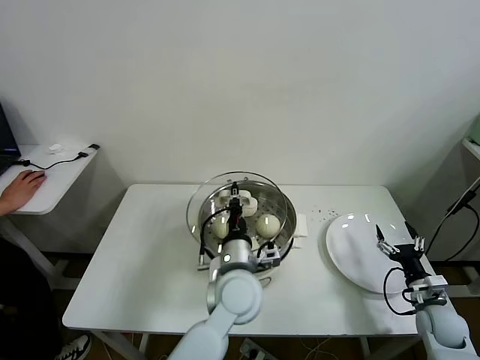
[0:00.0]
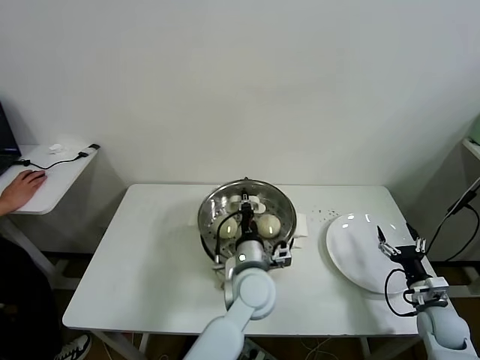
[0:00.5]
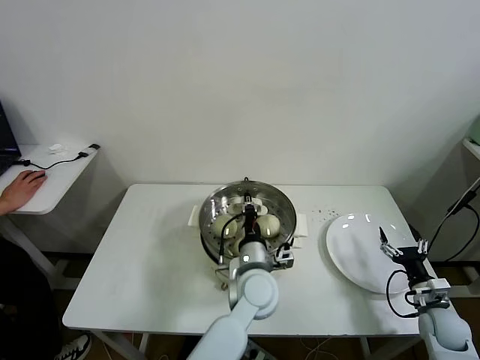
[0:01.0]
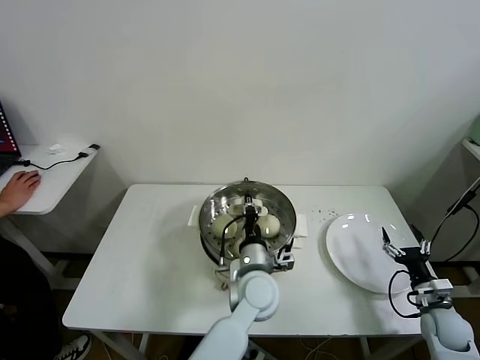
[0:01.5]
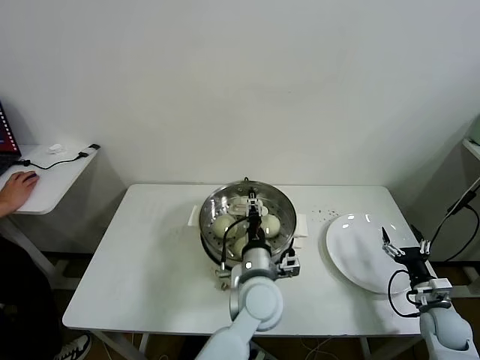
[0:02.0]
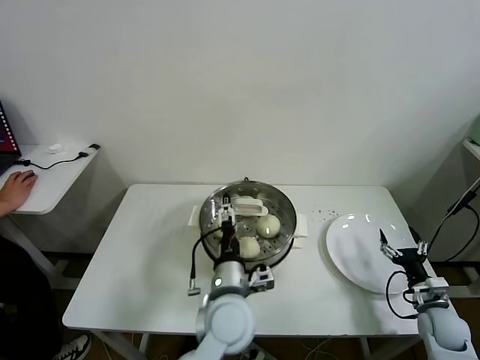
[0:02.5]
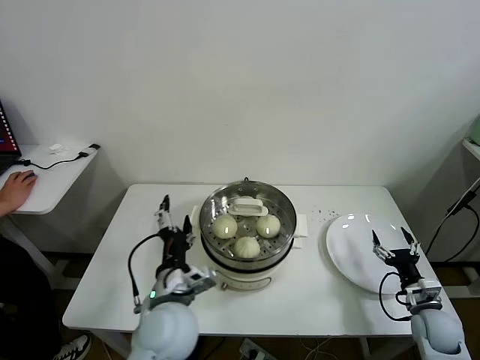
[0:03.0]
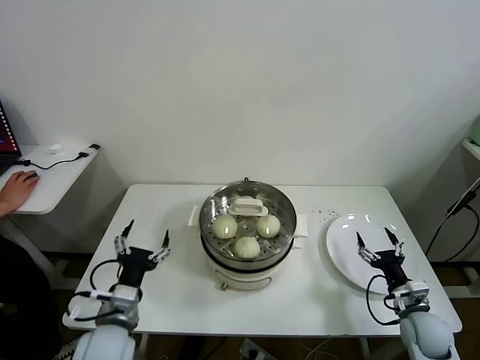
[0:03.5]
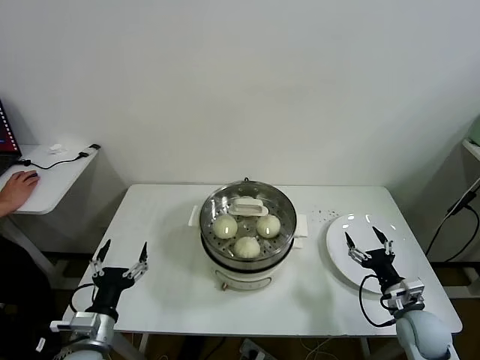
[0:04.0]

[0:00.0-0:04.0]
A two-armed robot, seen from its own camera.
Task of the whole recording: take steamed baozi put them in steamer.
Step, 0:00.0 to 0:02.0: Place the pot lid on the steamer with left gripper.
0:00.0 to 0:02.0: The left gripper travels to the right by about 5 cm, and opens its fingers.
0:02.0 to 0:04.0: The right gripper is displaced to the left by about 10 cm. The left gripper is displaced to the left by roughly 30 cm, and opens.

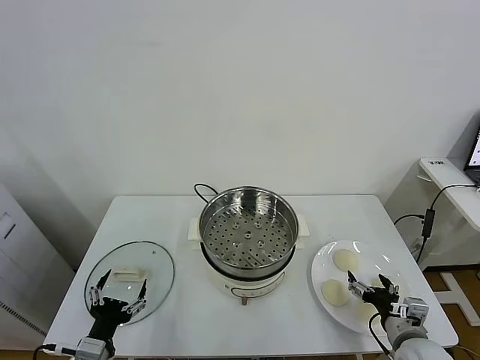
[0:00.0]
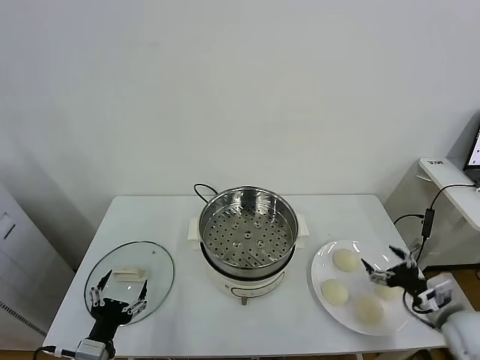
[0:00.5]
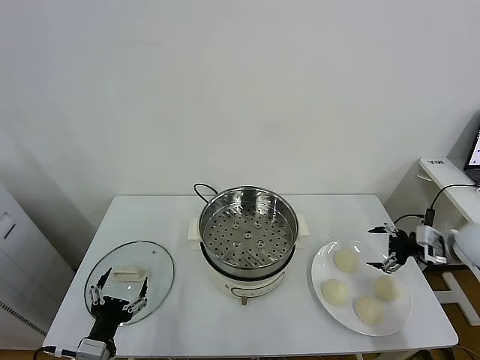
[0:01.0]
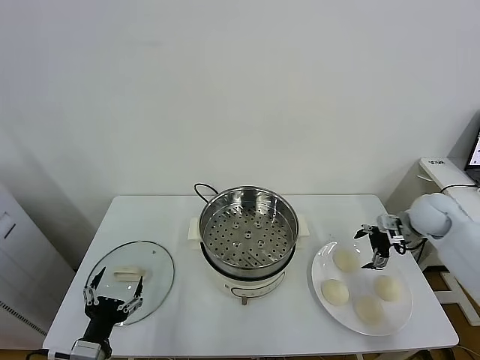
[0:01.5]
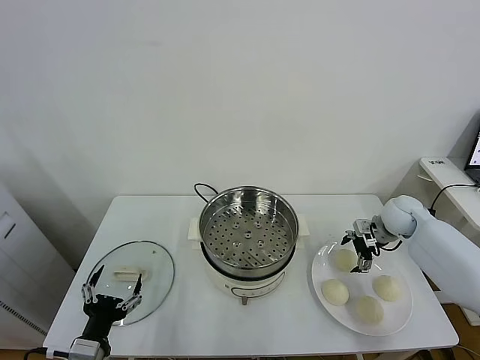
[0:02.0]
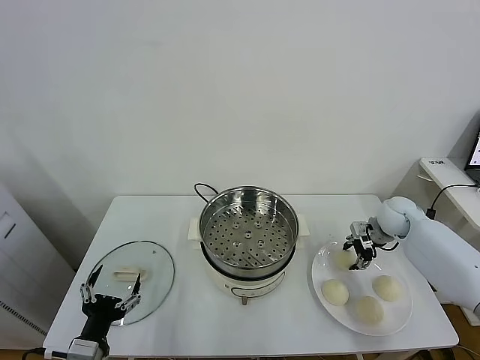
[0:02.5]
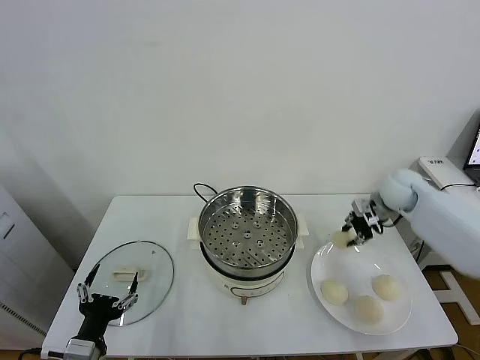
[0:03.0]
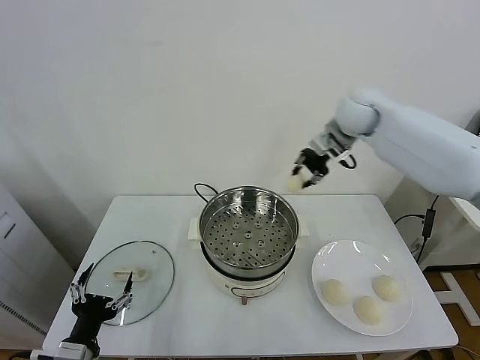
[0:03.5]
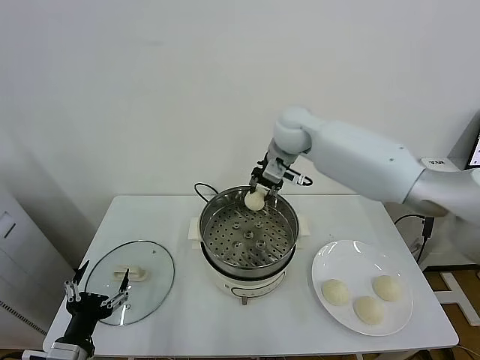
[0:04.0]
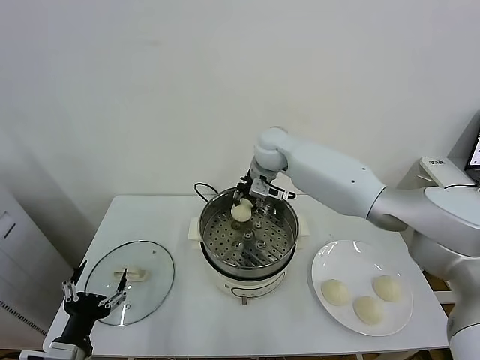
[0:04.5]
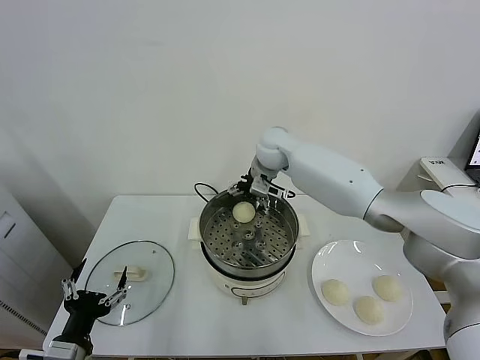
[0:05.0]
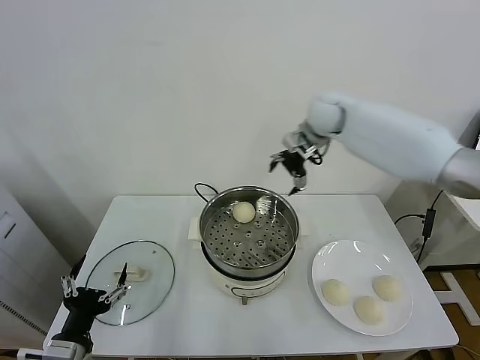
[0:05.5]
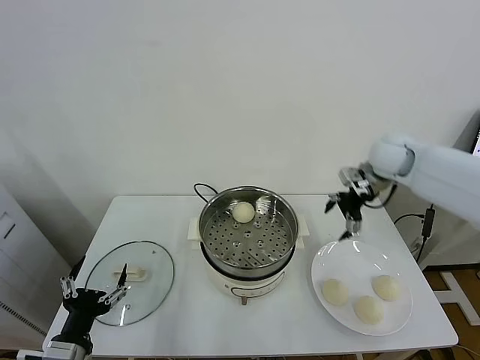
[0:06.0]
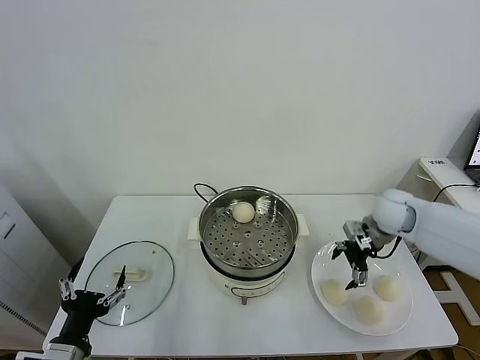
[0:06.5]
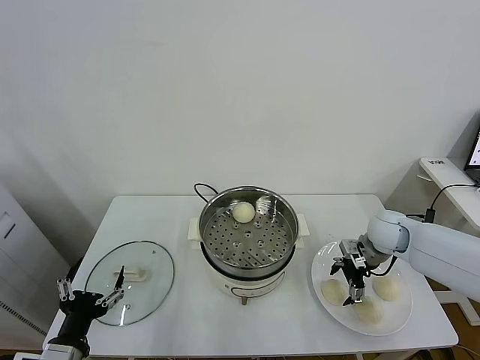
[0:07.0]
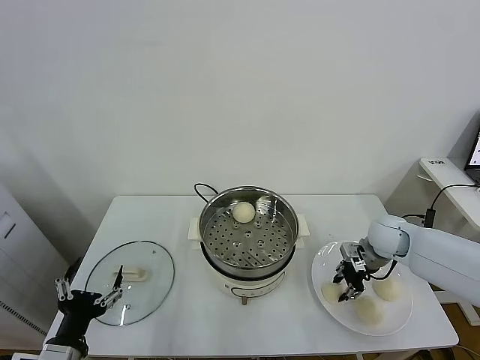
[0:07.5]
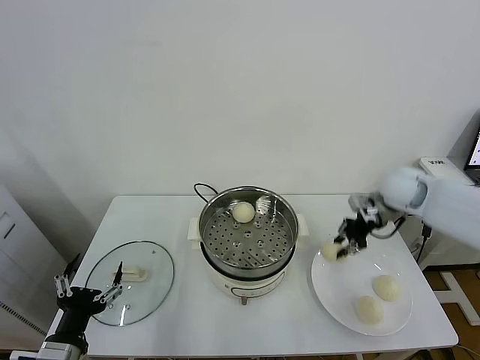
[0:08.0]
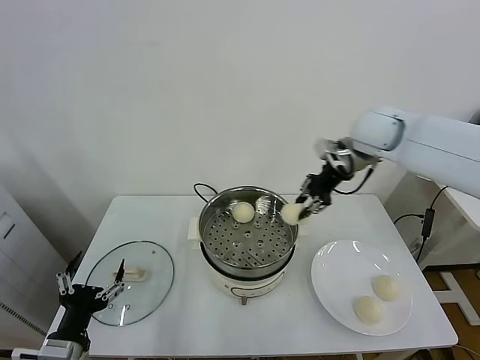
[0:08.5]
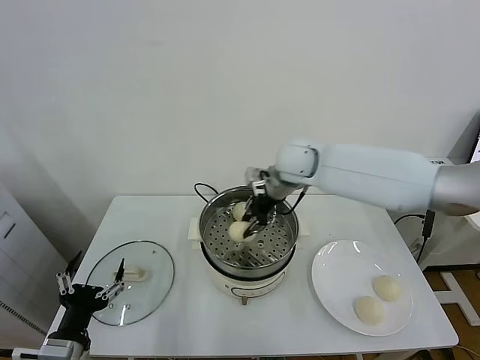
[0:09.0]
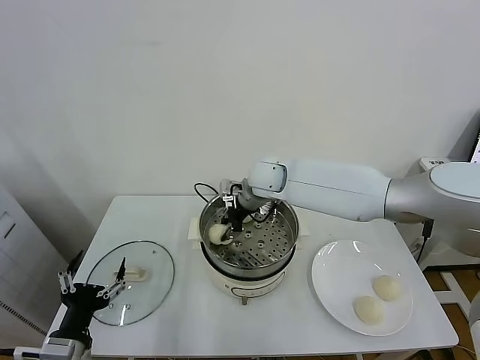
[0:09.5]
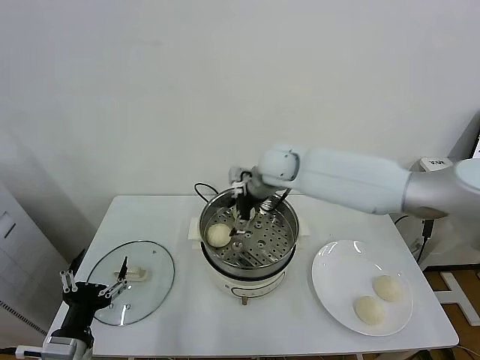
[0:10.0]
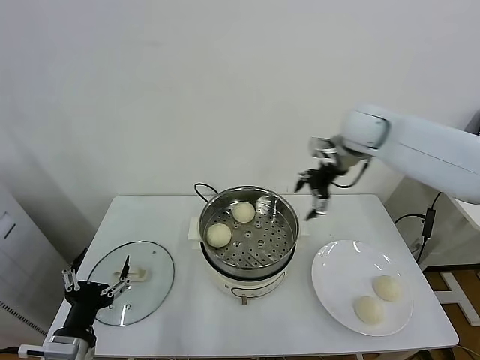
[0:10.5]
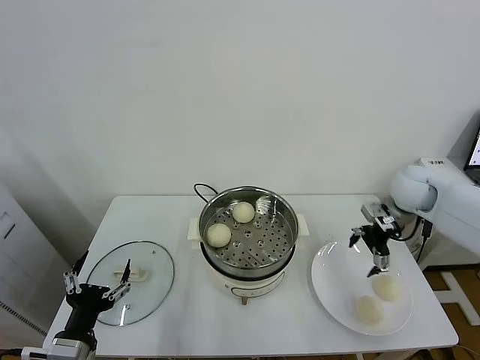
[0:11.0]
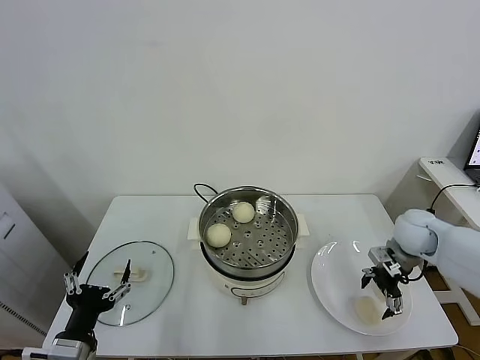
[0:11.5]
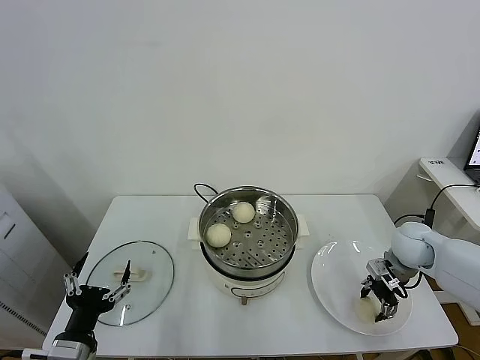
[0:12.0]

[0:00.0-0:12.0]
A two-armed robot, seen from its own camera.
Task of the whole recording: take steamed baozi put them in steamer.
Step, 0:00.0 to 0:02.0: Grasp the baozi in the plate with right gripper.
Step, 0:02.5 to 0:04.5: Place the baozi on the steamer with right gripper.
Step, 0:05.5 to 0:07.0: Grasp the baozi in the plate with right gripper.
Step, 0:07.5 to 0:09.5: Place the baozi on the steamer with right gripper.
Step, 0:10.5 to 0:12.0: Grasp the baozi in the plate with right gripper.
0:02.0 to 0:04.0: The right gripper heads to the left and upward, covering some 35 cm, and closes up.
0:04.0 to 0:06.0: The right gripper moves to the right, roughly 25 cm, and opens up.
0:06.0 to 0:08.0: The right gripper goes downward and returns, some 15 cm each way, and closes its fingers.
0:08.0 to 0:10.0: The right gripper shifts some 25 cm to the left, and opens its fingers.
0:10.0 to 0:12.0: The right gripper goes approximately 35 cm to the right and downward, and closes.

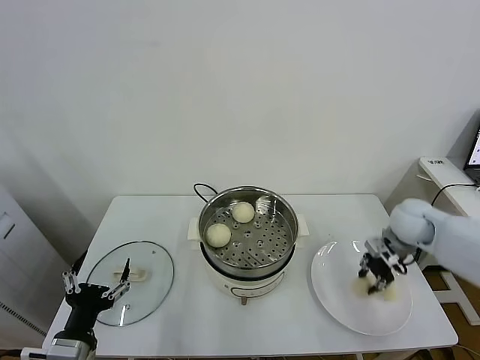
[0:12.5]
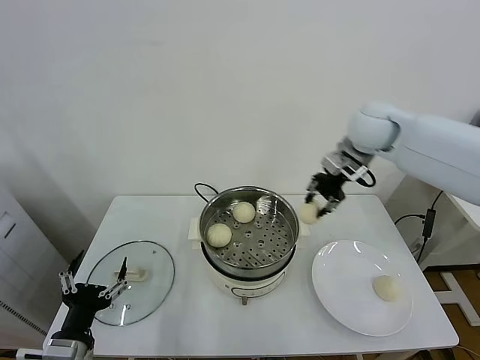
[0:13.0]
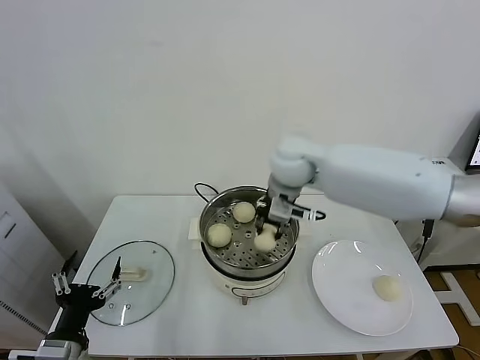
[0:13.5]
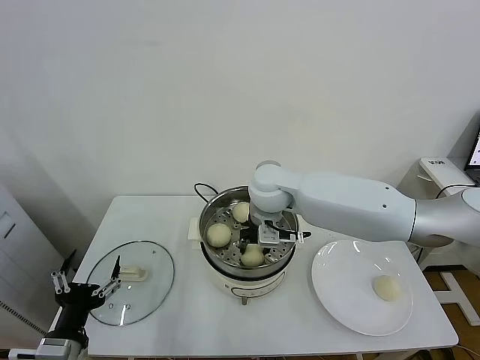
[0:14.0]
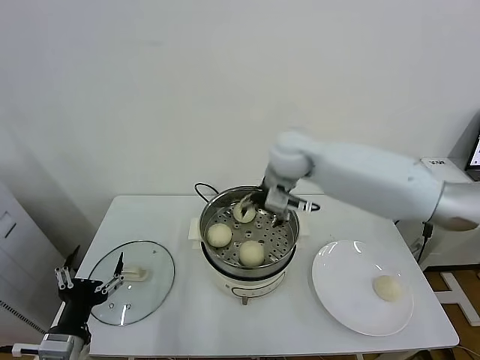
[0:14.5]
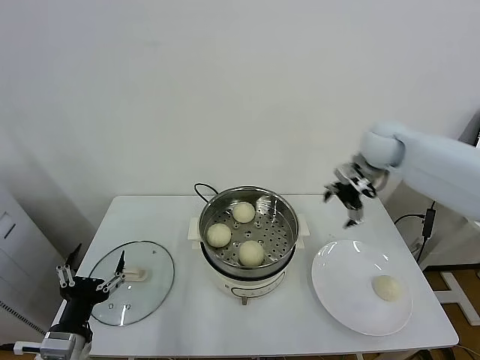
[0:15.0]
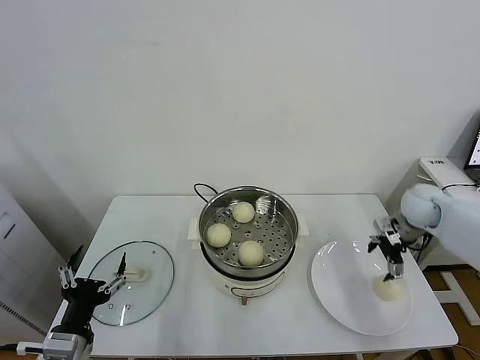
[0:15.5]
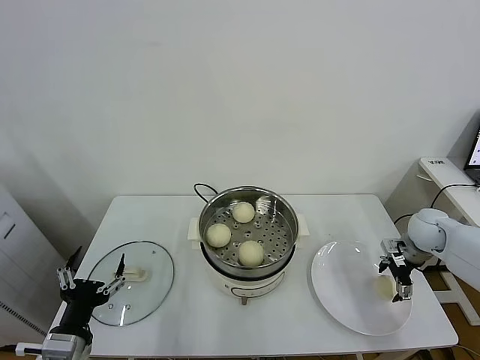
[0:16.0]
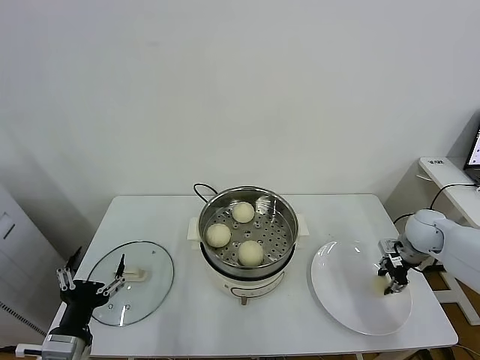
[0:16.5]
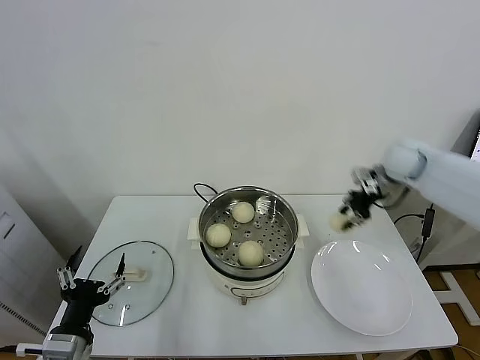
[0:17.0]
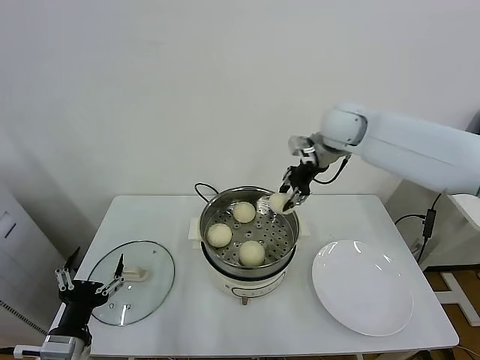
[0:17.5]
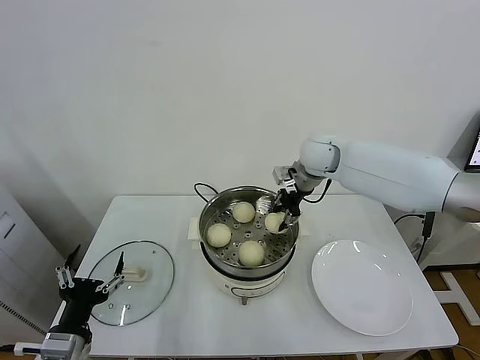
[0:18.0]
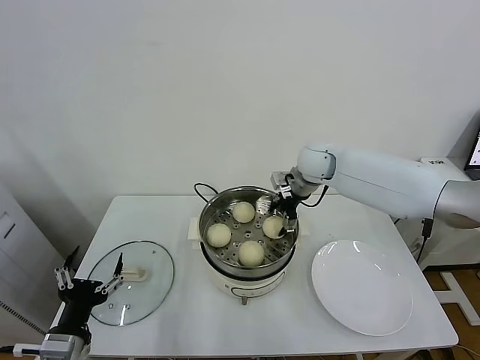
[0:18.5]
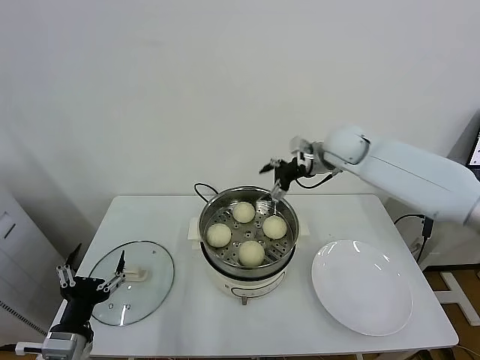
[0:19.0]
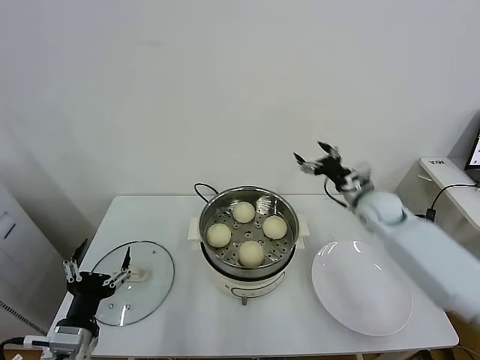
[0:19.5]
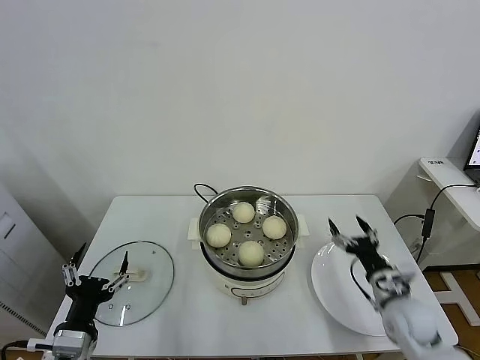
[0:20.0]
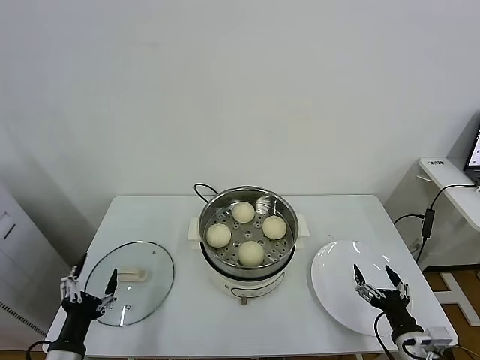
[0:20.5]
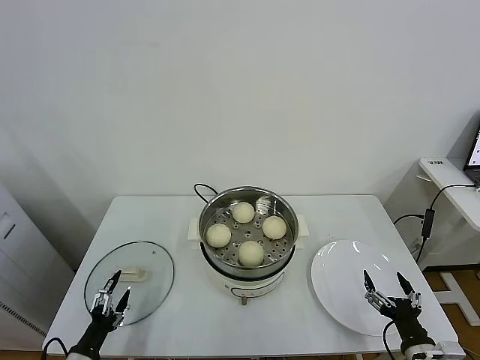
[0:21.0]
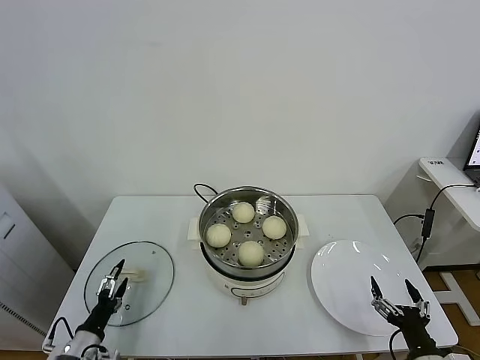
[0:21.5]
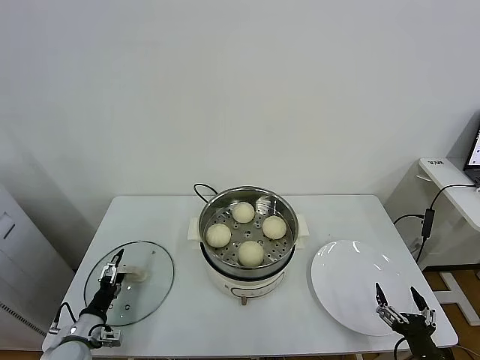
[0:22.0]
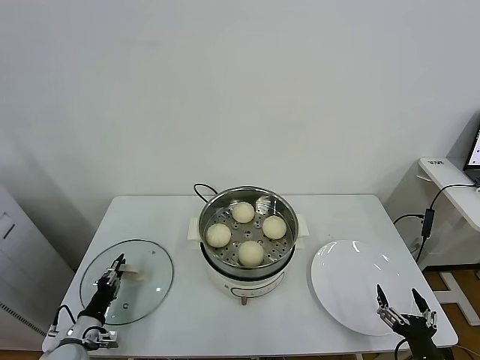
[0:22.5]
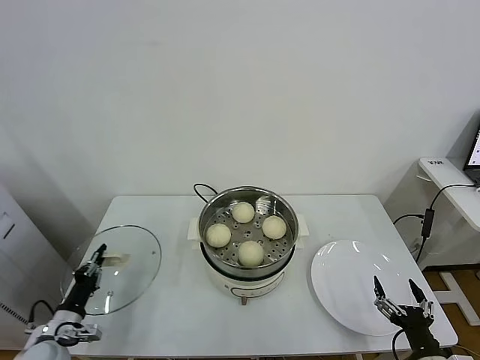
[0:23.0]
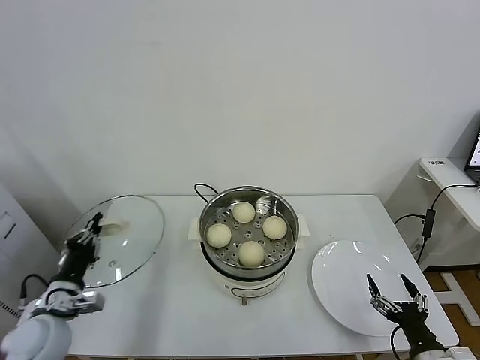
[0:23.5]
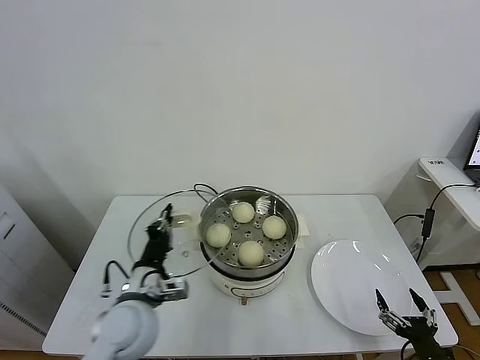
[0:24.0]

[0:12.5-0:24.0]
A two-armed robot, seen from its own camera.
Task of the whole recording: take steamed baozi put them in steamer.
Step, 0:12.5 to 0:14.0: Place the baozi on the steamer with right gripper.
Step, 0:14.5 to 0:16.0: Grasp the baozi in the plate with right gripper.
Step, 0:16.5 to 0:18.5: Place the baozi on the steamer with right gripper.
Step, 0:19.0 to 0:22.5: Grasp the pot lid with left gripper.
0:12.5 to 0:14.5: The right gripper heads to the left and upward, covering approximately 30 cm, and opens its fingers.
0:14.5 to 0:16.5: The right gripper moves to the right and downward, approximately 40 cm, and closes.
0:16.5 to 0:18.5: The right gripper goes some 30 cm to the left and upward, and opens its fingers.
0:18.5 to 0:20.0: The right gripper travels backward, downward and to the right by some 40 cm.
0:20.0 to 0:22.0: The right gripper moves backward, some 20 cm; the left gripper goes roughly 20 cm downward, to the left and forward.
0:22.0 to 0:24.0: The left gripper travels upward and to the right by approximately 25 cm, and closes its fingers.
